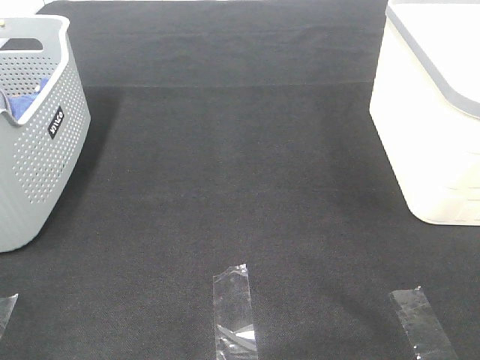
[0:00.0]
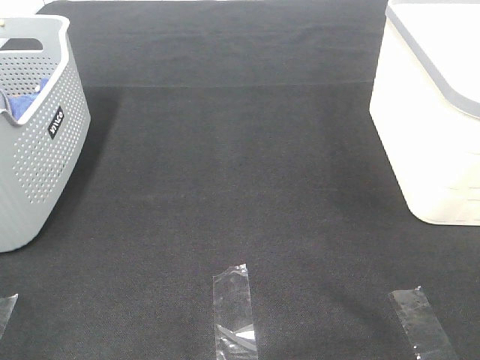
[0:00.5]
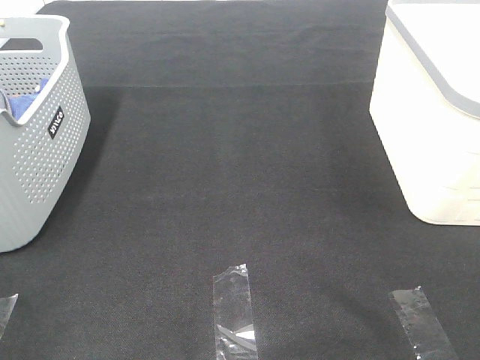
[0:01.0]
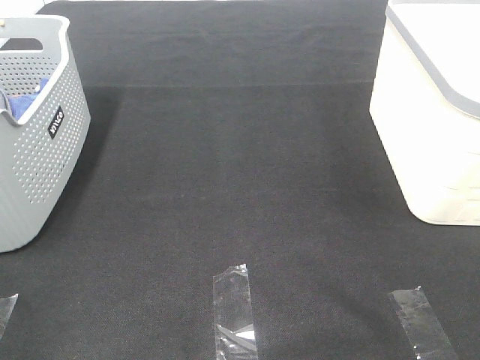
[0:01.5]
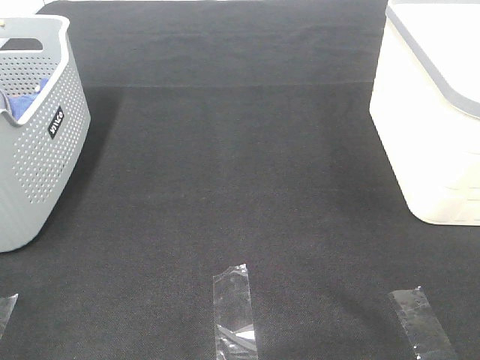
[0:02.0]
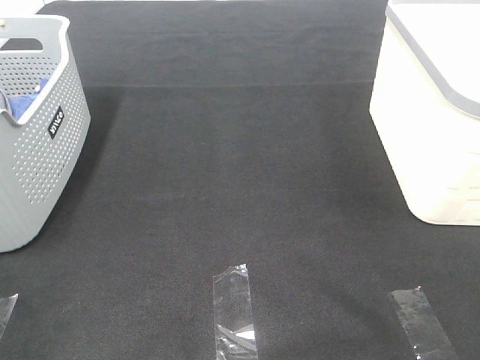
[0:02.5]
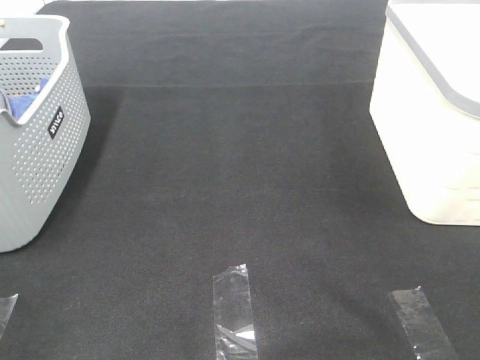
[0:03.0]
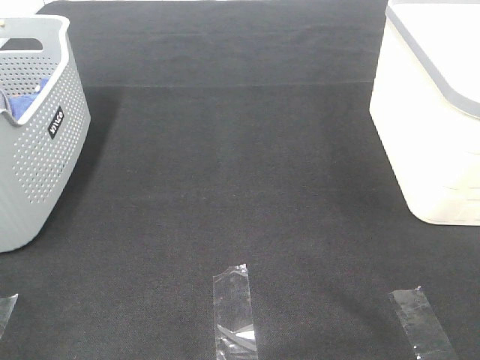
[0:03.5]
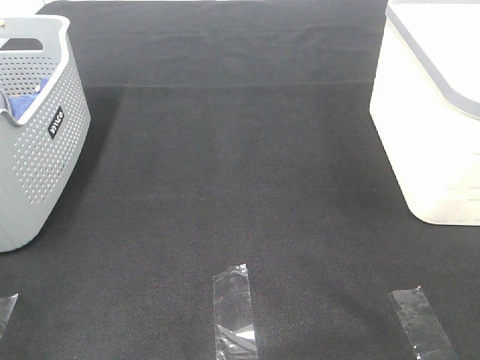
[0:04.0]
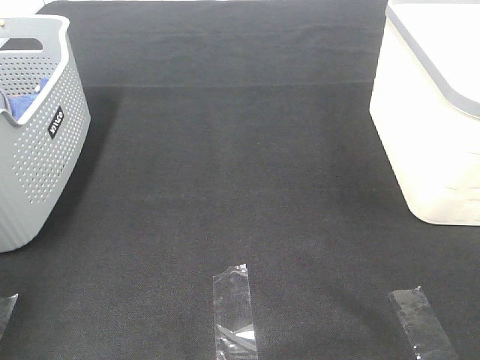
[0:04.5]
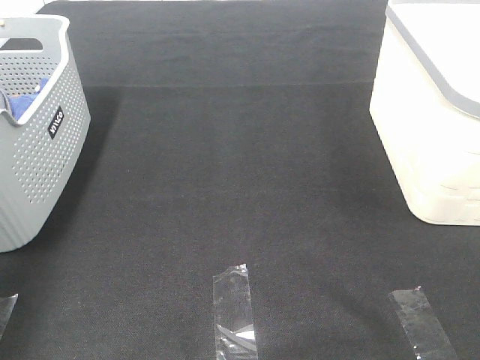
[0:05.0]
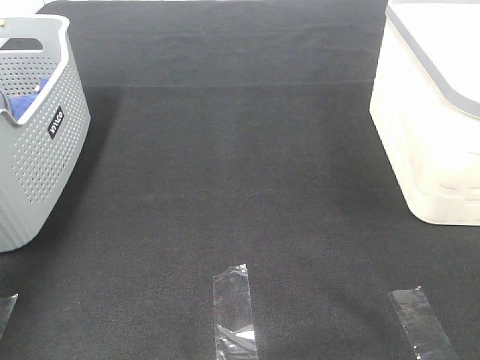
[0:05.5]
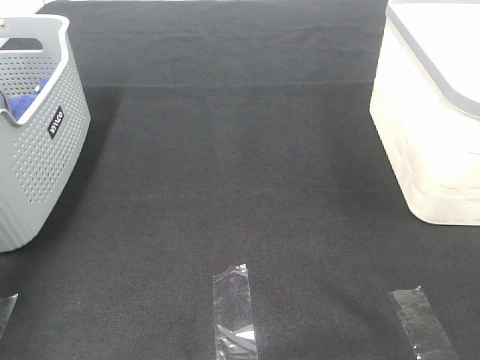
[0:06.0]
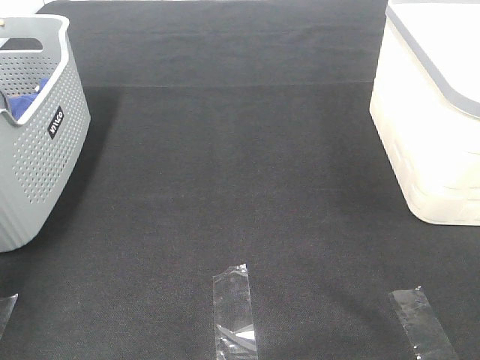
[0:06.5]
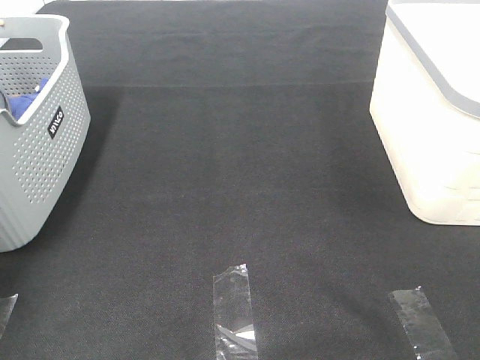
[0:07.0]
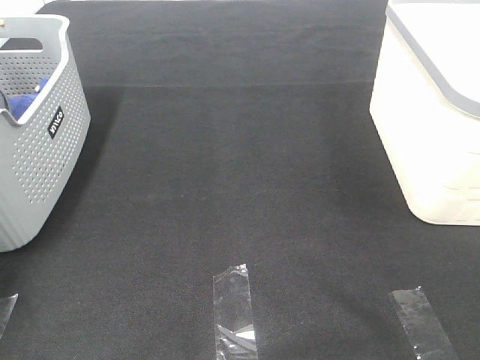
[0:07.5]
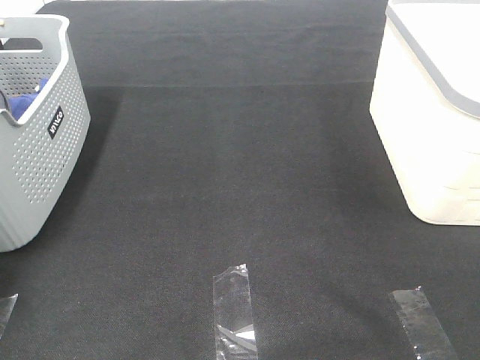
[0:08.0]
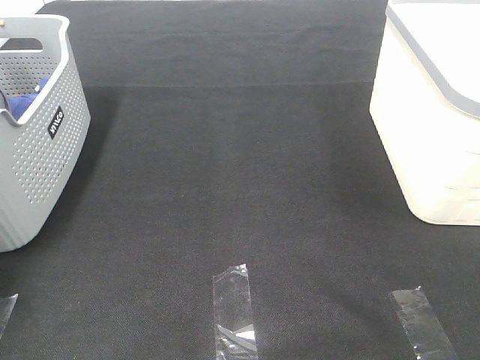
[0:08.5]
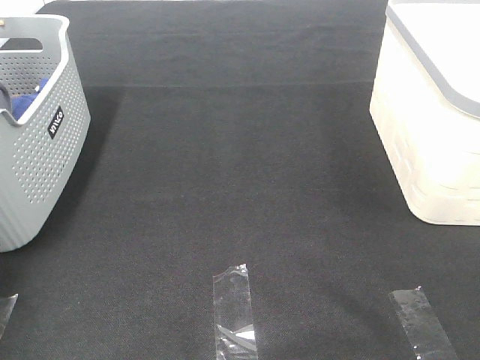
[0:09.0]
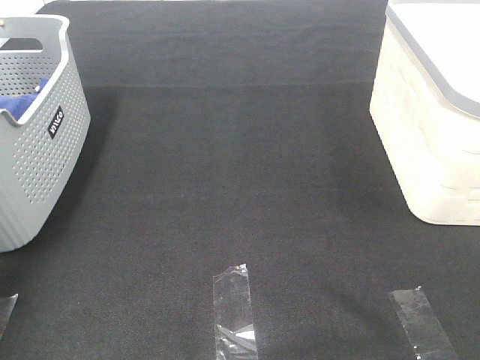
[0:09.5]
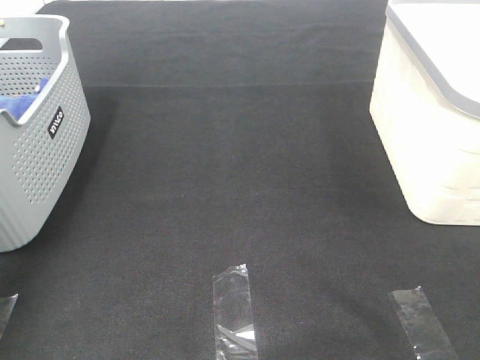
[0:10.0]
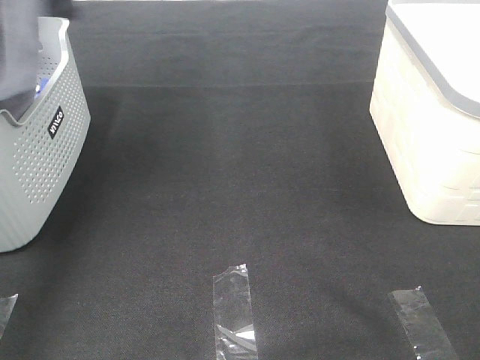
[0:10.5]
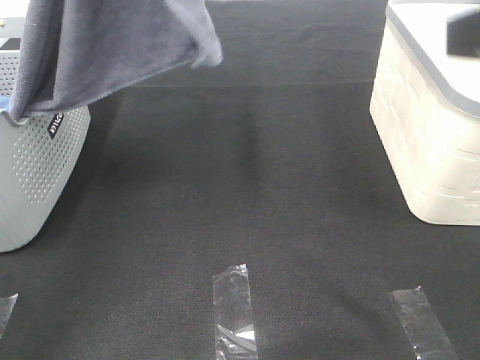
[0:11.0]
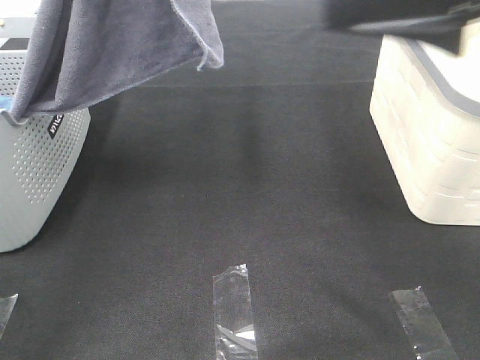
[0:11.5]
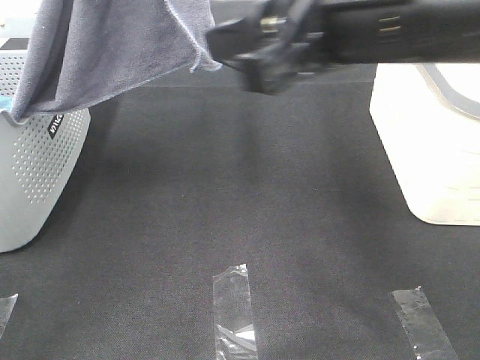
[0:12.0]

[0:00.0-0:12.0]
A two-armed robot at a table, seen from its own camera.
Task of the whole recording: Remove the towel and place it.
0:00.0 to 0:02.0: Neither gripper changes place.
0:04.0 to 0:06.0: The left gripper moves forward, about 40 cm.
0:08.0 to 0:10.0: The left gripper goes approximately 30 cm upward and backward, and closes up.
0:10.0 to 0:12.0: The left gripper is displaced to the right by approximately 15 cm, while the right gripper shifts about 30 cm forward and to the left.

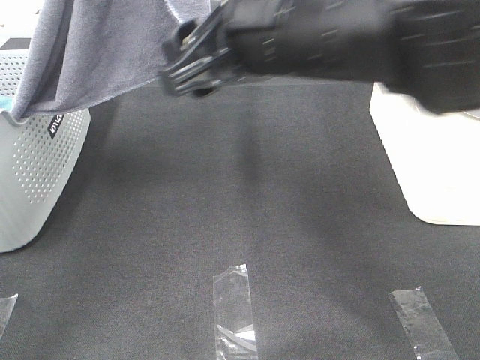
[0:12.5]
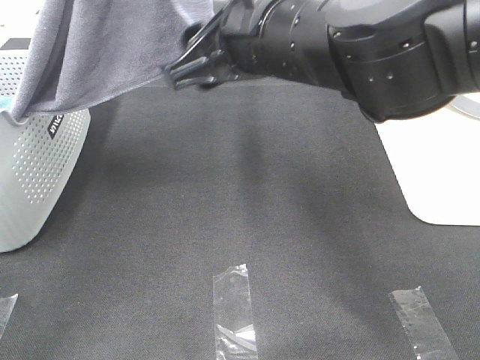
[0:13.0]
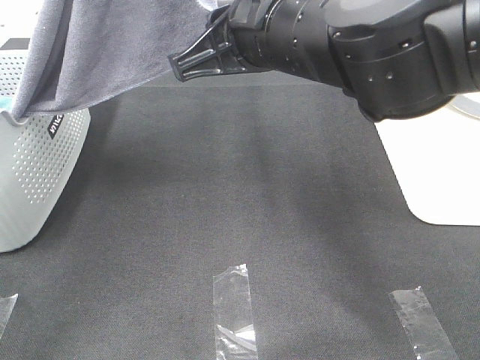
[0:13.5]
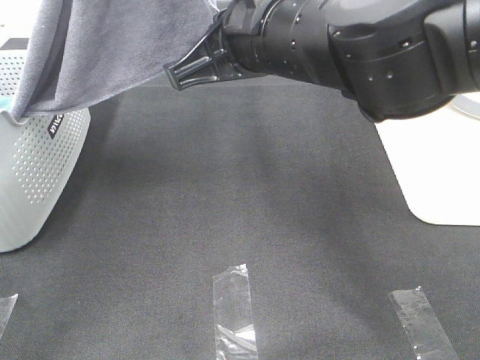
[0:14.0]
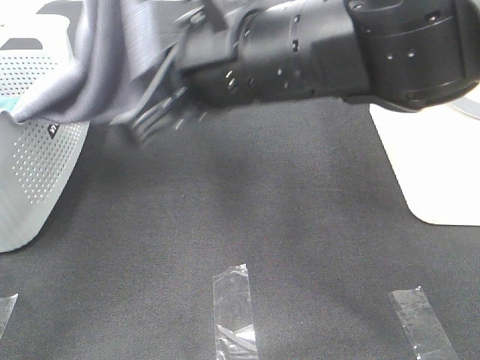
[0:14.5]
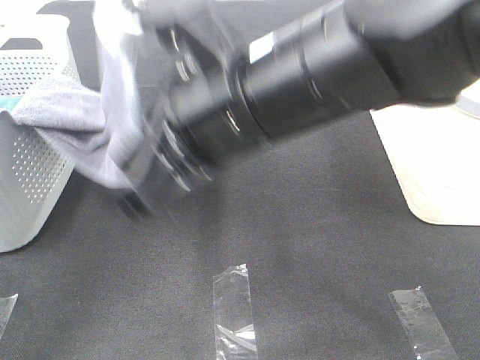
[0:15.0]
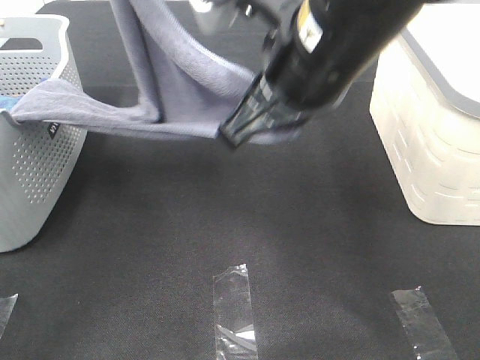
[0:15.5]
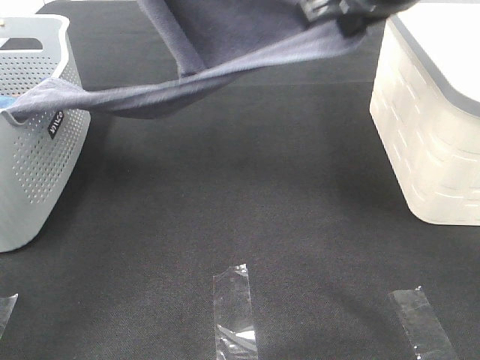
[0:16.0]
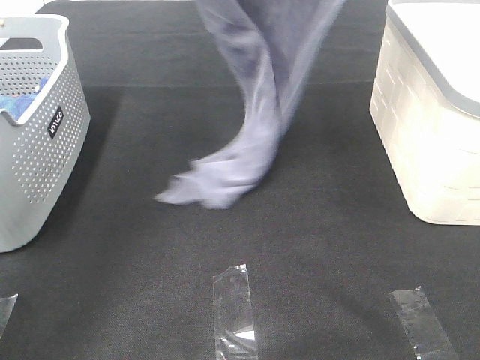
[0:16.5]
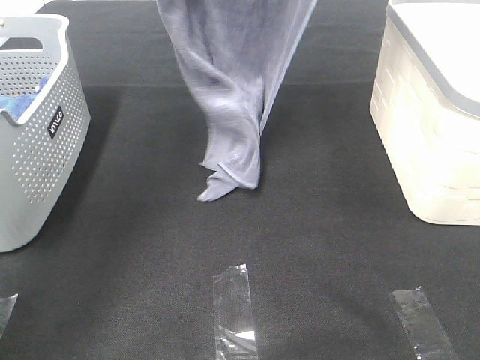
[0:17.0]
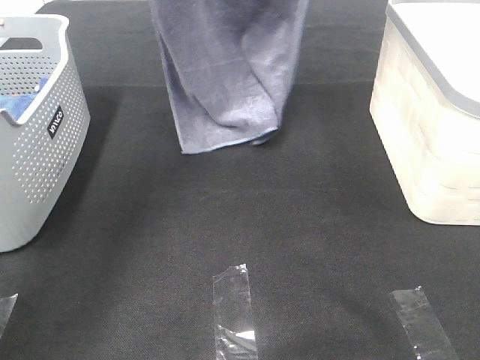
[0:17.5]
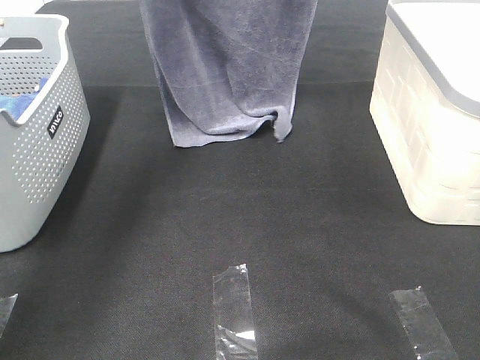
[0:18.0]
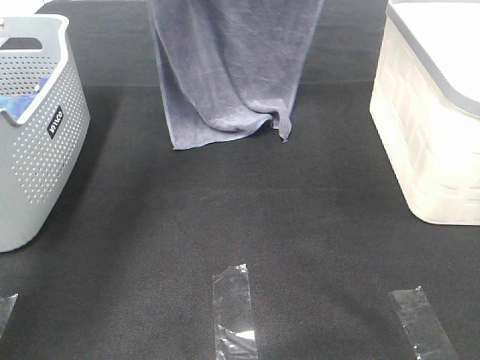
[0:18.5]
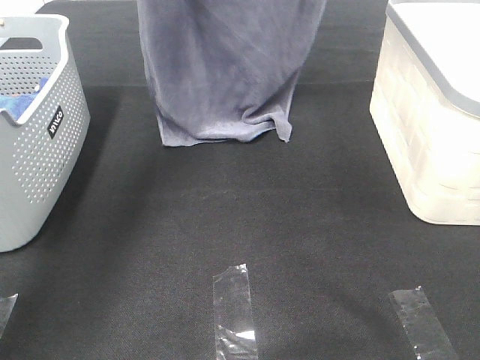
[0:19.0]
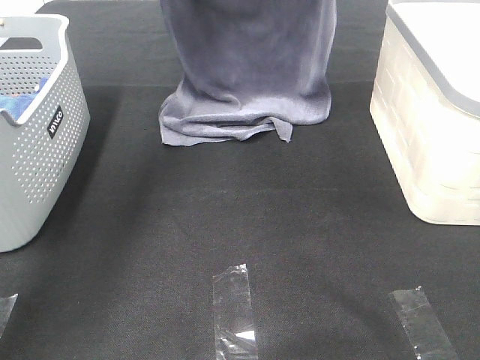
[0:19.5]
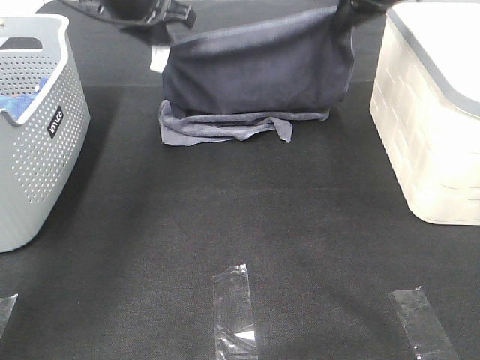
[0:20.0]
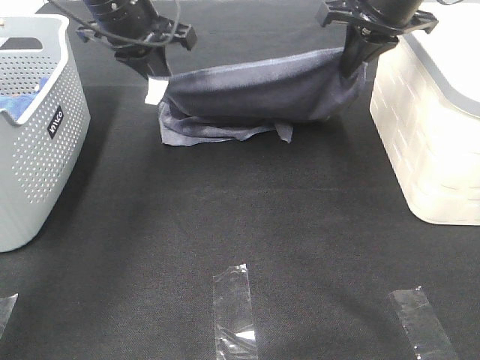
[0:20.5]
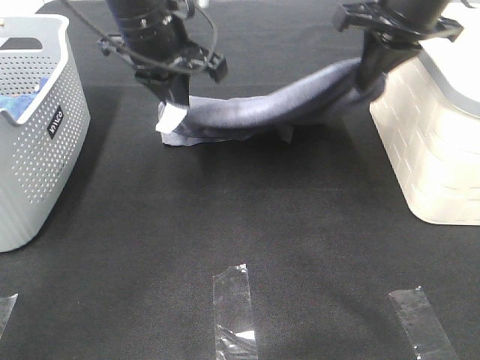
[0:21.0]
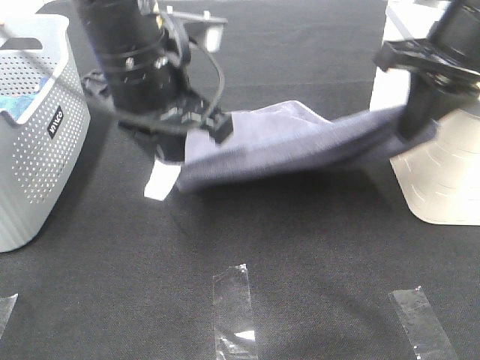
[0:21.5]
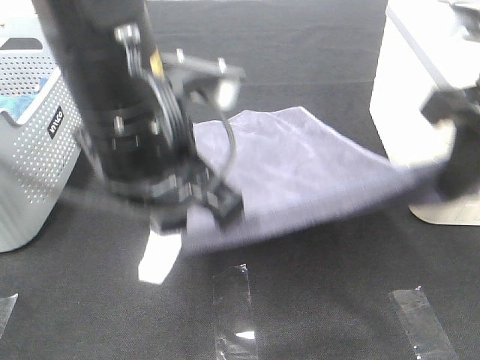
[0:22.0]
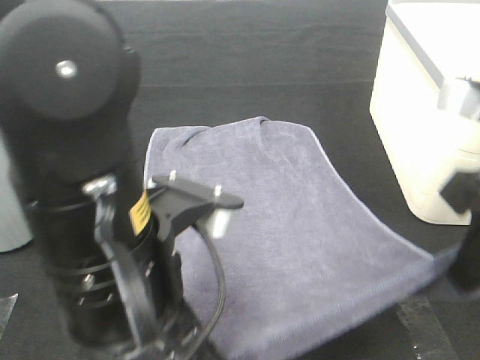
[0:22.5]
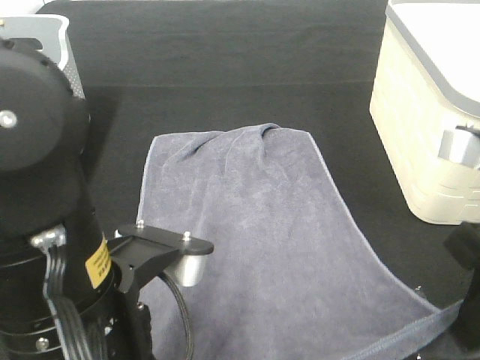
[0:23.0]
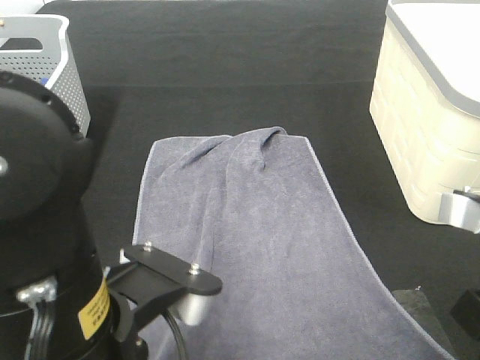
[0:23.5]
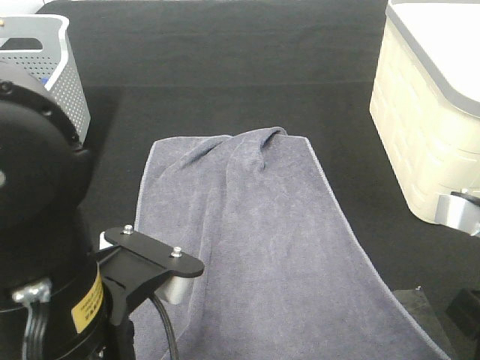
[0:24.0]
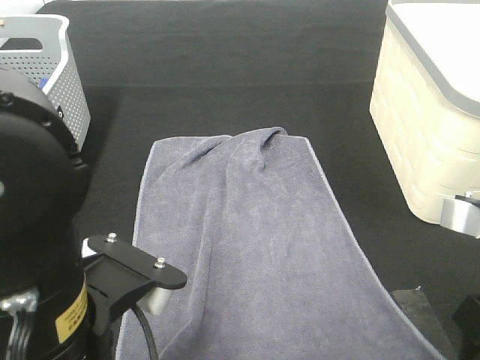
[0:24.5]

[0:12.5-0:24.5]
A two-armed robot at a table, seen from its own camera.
Task of the whole recording: Remove the towel and place it.
Step, 0:12.5 to 0:14.5: Right hand: grab a corner of the grey towel and straighten it.
Step, 0:15.0 to 0:19.5: Left hand: spread the grey towel flat on the table.
Step, 0:15.0 to 0:19.5: Right hand: spread the grey towel flat on the table.
0:12.5 to 0:14.5: The right gripper closes.
0:14.5 to 0:16.5: The right gripper travels to the right, forward and upward by some 25 cm; the left gripper travels forward and downward by some 15 cm.
0:16.5 to 0:18.5: The right gripper heads forward, covering some 10 cm.
0:18.5 to 0:20.5: The left gripper shifts roughly 15 cm downward. Meanwhile the right gripper is displaced downward and backward by roughly 15 cm.
0:20.5 to 0:22.5: The two grippers go approximately 25 cm backward.
0:22.5 to 0:24.5: The left gripper ends up about 5 cm from where it was, and opens up, while the right gripper heads downward and backward, covering roughly 5 cm, and opens.

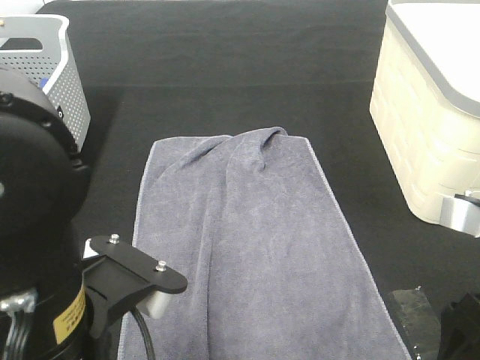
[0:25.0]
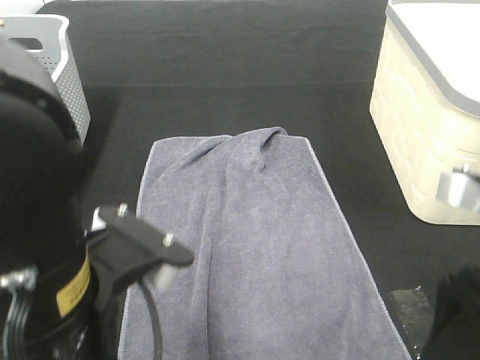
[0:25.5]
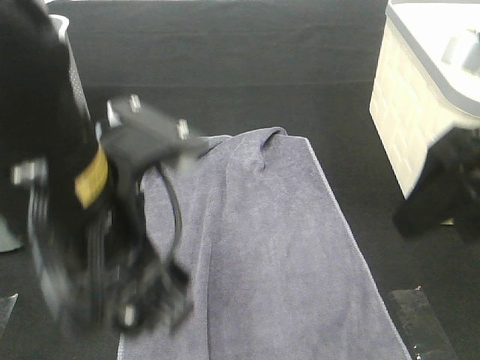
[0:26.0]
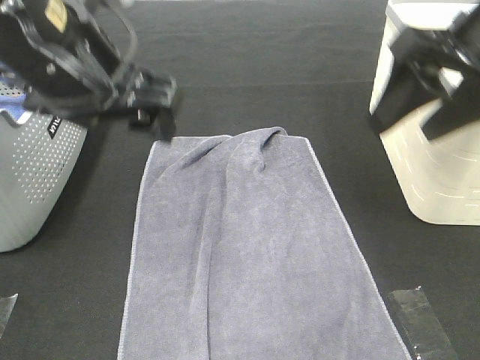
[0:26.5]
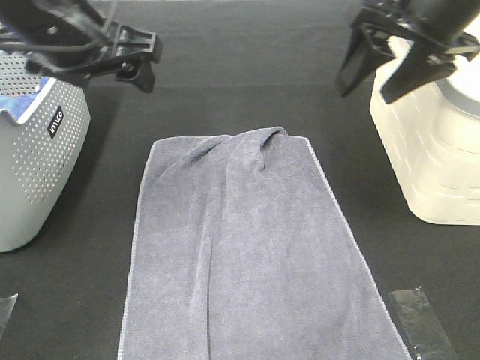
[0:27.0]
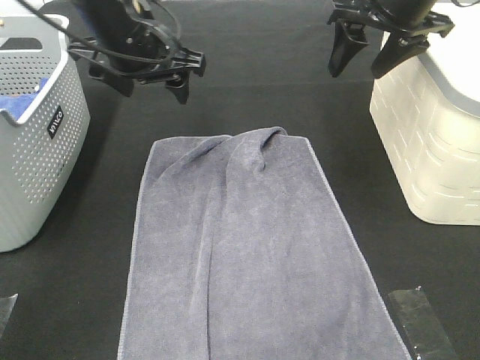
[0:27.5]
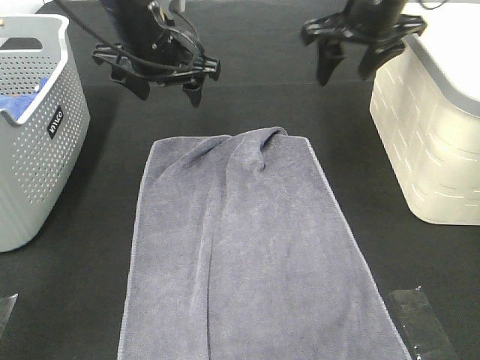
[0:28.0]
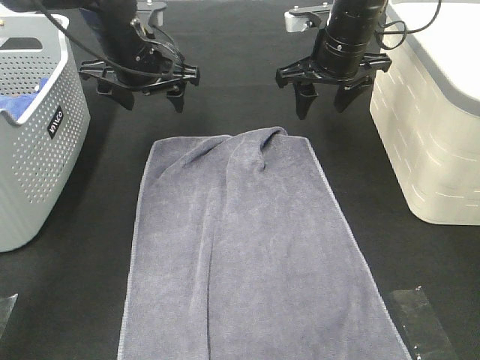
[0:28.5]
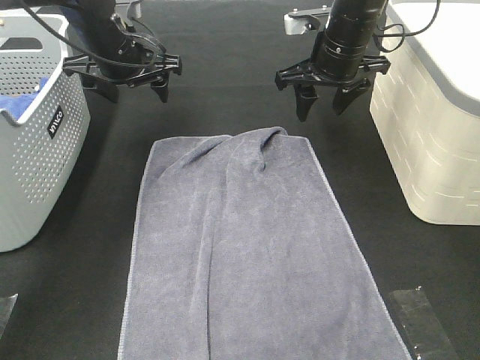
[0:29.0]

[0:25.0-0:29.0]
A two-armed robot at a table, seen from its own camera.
Task of the whole recording: Remove the towel and place it.
0:25.0 to 0:27.0: The left gripper is displaced forward by some 25 cm. The right gripper heads forward and upward, covering roughly 25 cm.
0:27.0 to 0:29.0: The left gripper moves forward and downward, approximately 15 cm, while the right gripper moves forward, downward and to the left, about 15 cm.
